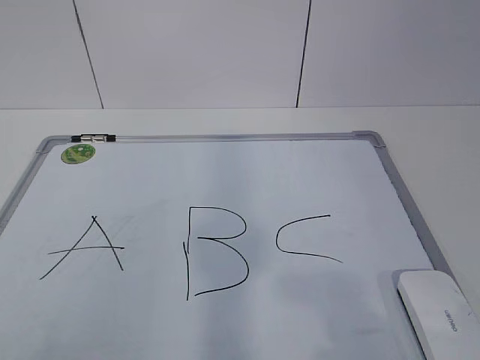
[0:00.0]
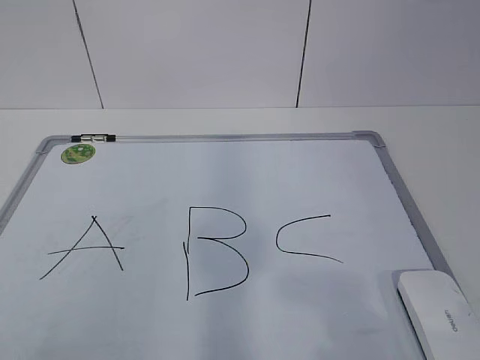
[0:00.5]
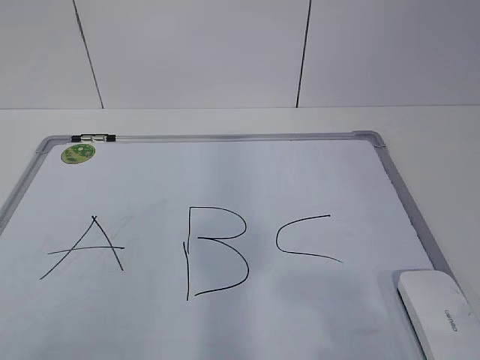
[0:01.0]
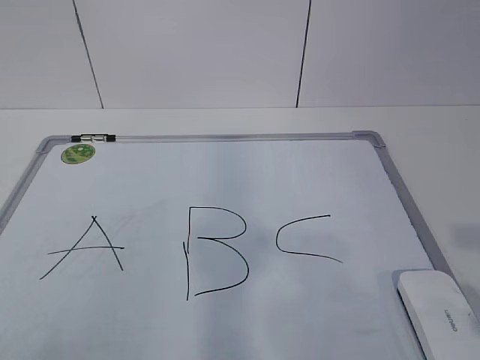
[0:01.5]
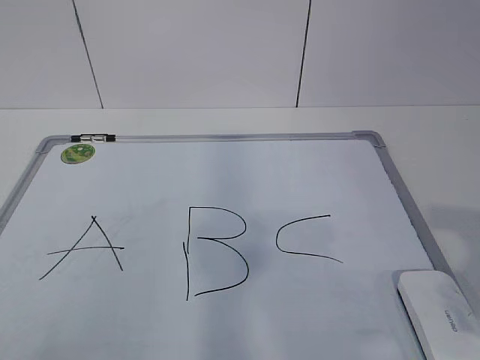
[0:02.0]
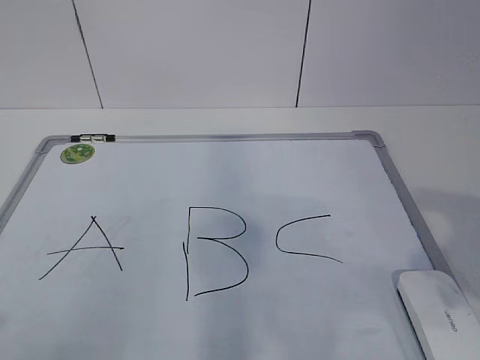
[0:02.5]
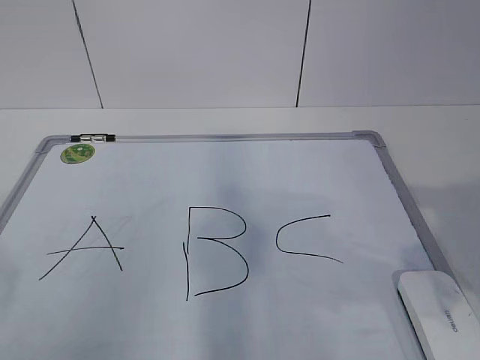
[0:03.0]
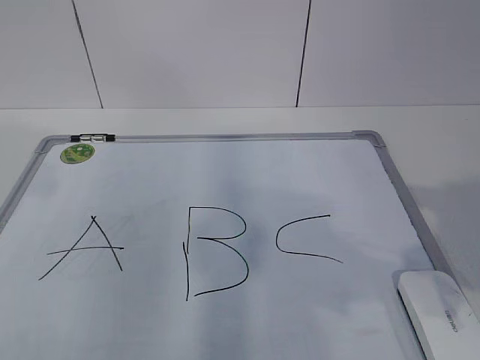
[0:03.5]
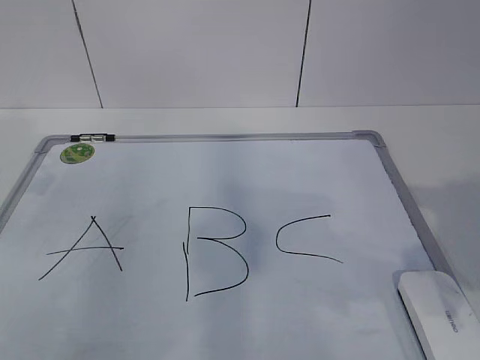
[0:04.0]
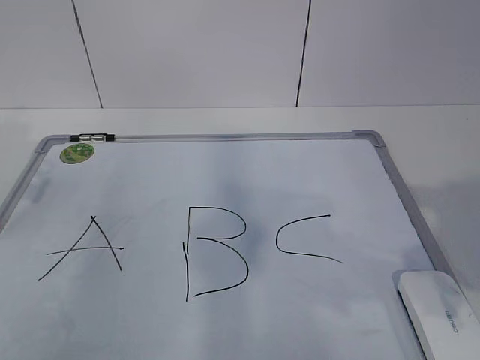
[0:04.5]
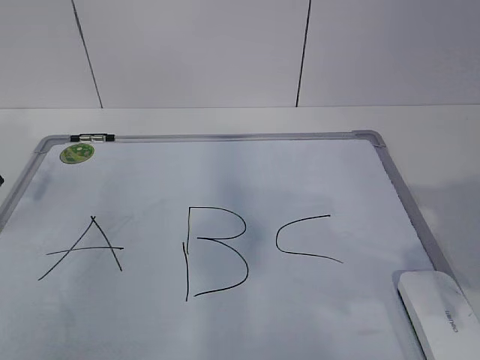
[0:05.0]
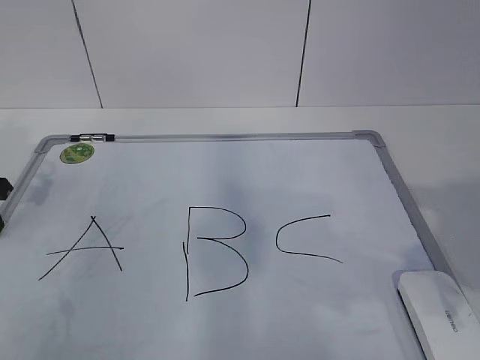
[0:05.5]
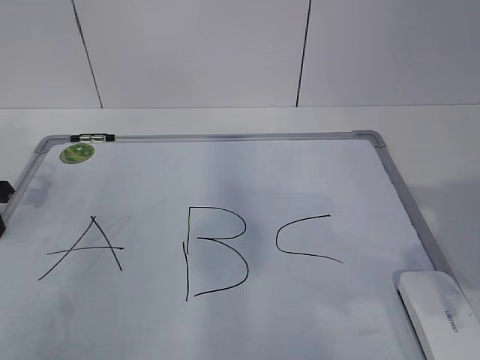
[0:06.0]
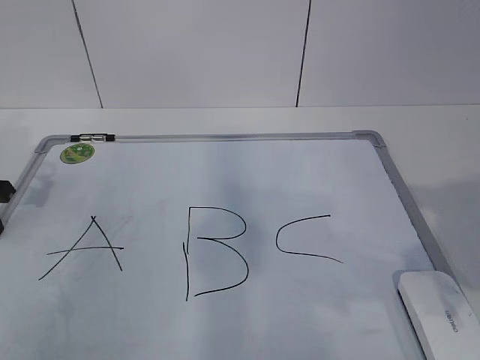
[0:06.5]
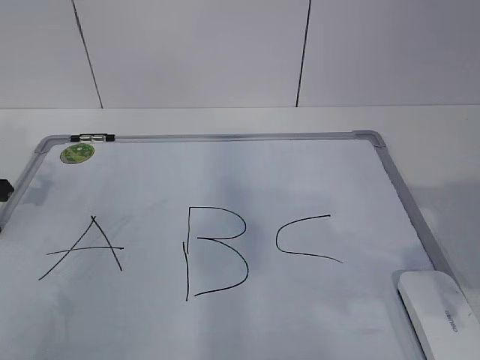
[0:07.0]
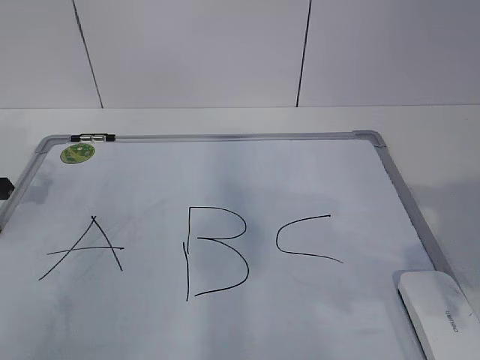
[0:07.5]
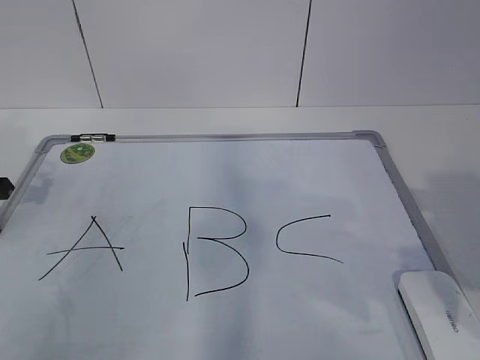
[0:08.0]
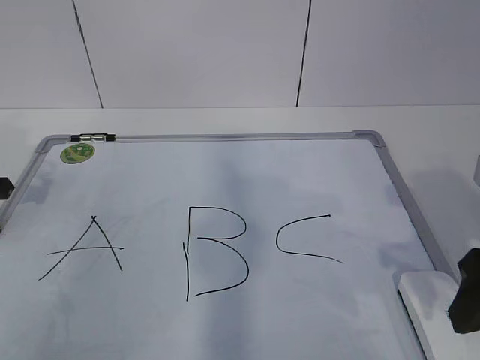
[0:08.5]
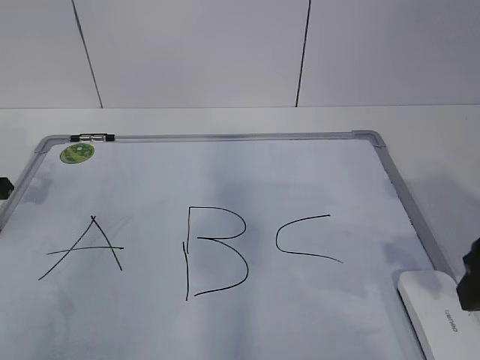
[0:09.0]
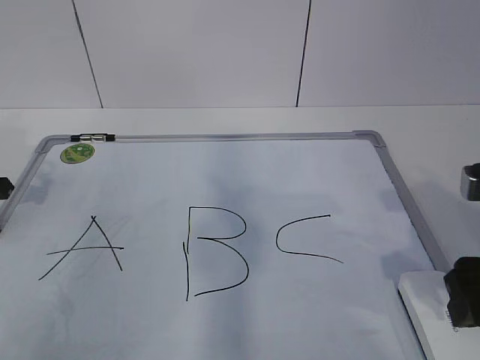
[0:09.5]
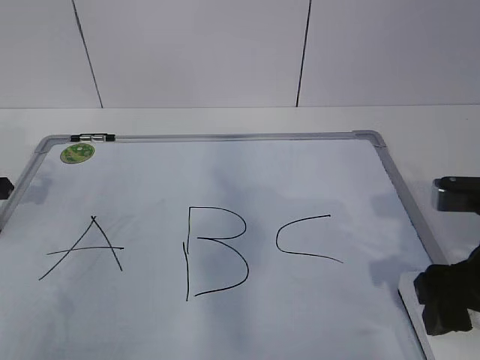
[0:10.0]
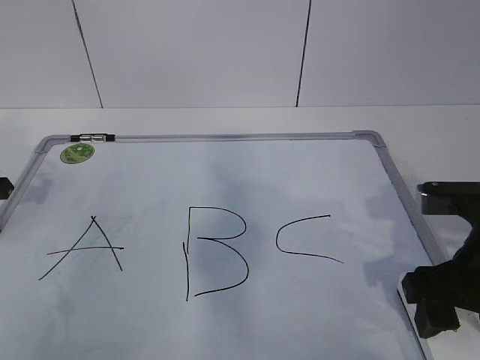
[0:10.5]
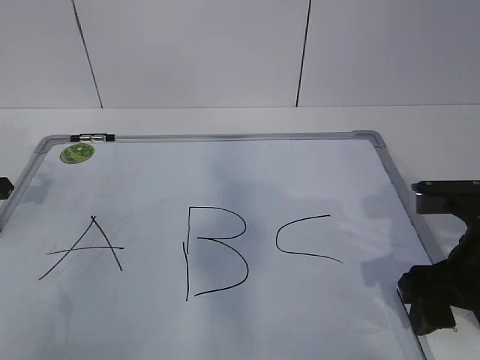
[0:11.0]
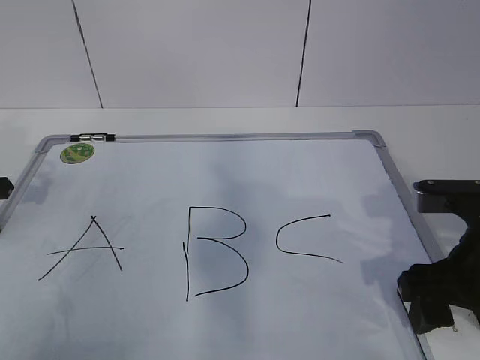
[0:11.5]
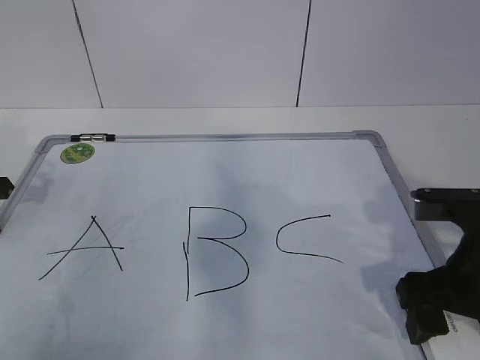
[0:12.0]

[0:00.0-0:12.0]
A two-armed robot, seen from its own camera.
Task of the whole recording: pick up the eraser on the blackboard and erase the letter "B".
Step, 0:05.0 to 0:10.5: Grab the eraser with your right hand.
0:02.0 to 0:04.0: The left gripper goes about 30 cm forward.
0:08.0 to 0:10.0: The right gripper moves downward, approximately 5 cm.
0:10.0 to 0:12.0: The grippers make only small movements.

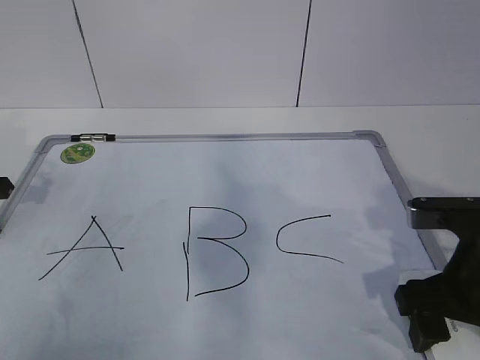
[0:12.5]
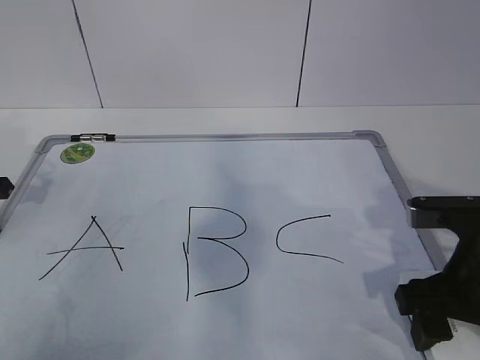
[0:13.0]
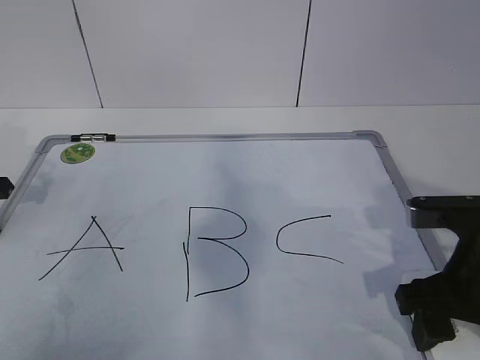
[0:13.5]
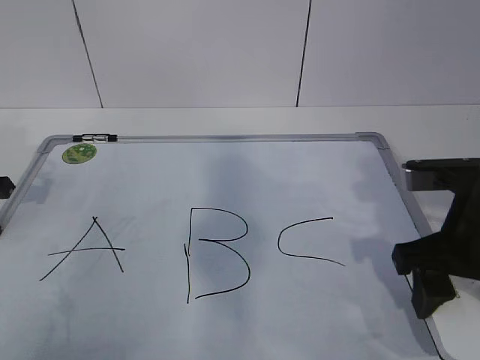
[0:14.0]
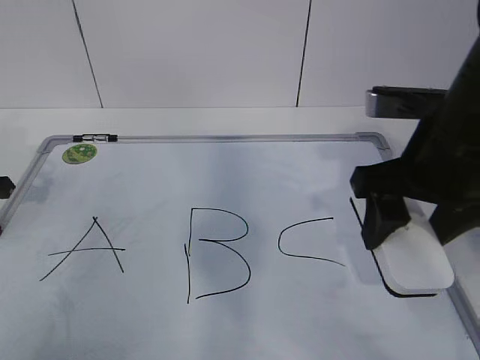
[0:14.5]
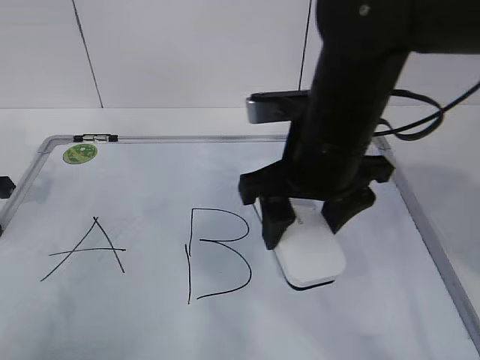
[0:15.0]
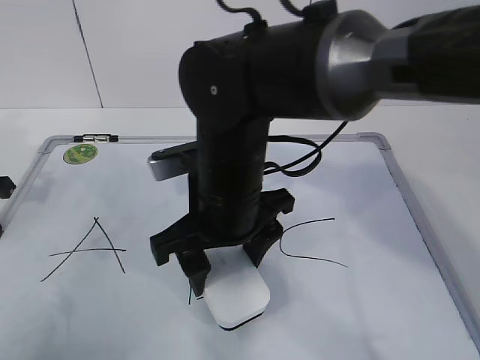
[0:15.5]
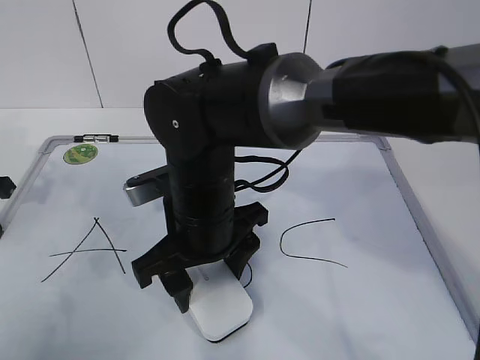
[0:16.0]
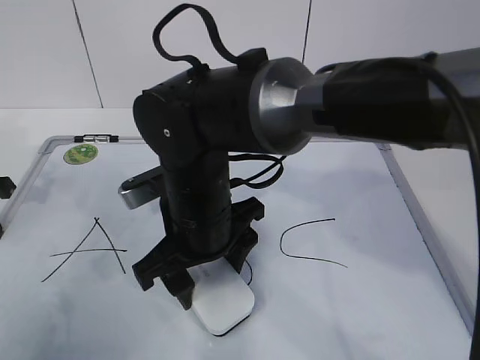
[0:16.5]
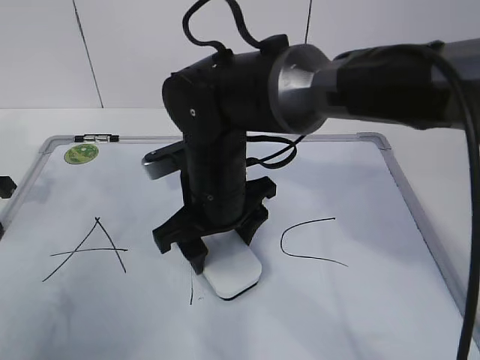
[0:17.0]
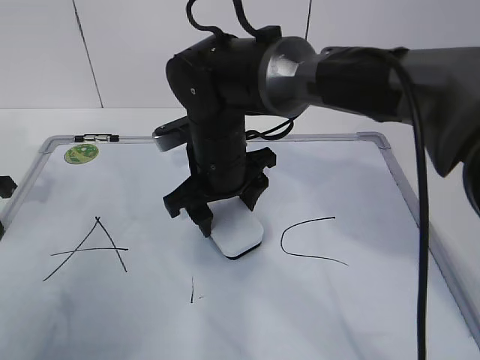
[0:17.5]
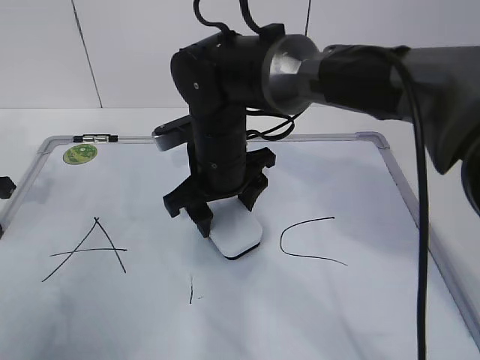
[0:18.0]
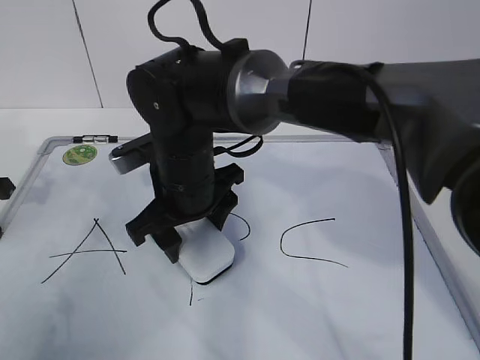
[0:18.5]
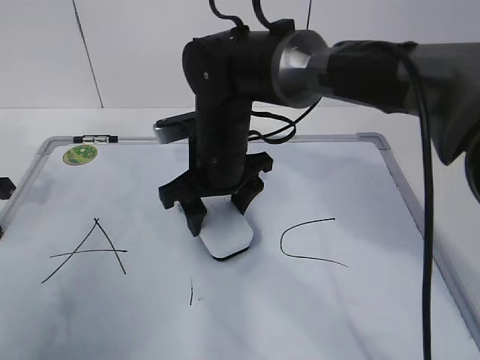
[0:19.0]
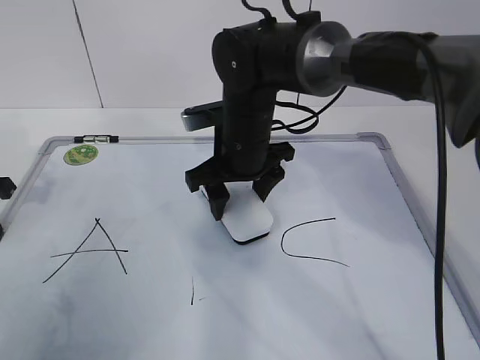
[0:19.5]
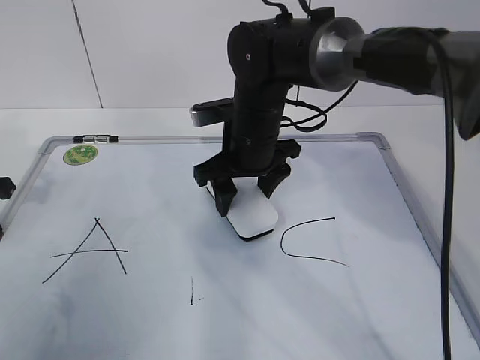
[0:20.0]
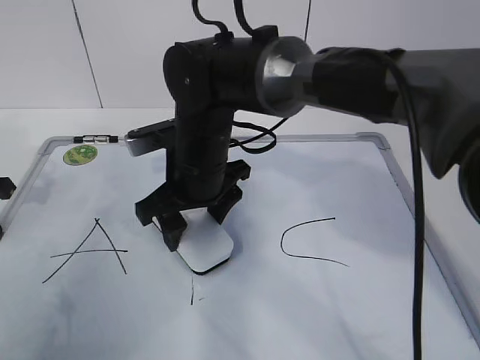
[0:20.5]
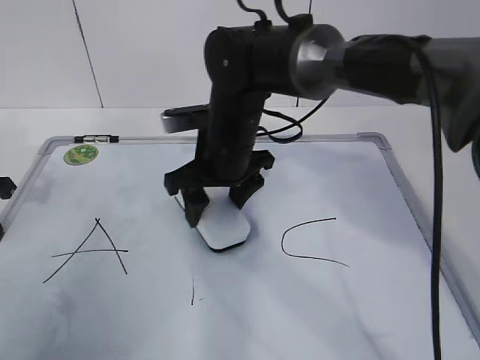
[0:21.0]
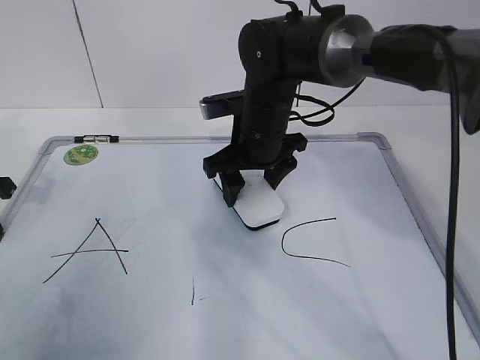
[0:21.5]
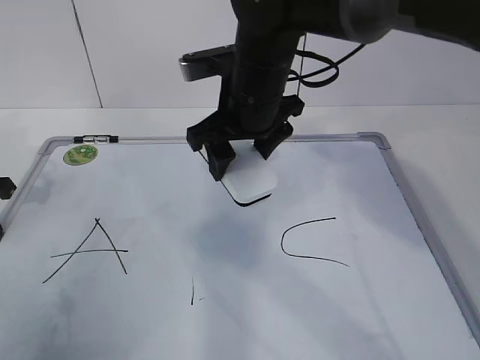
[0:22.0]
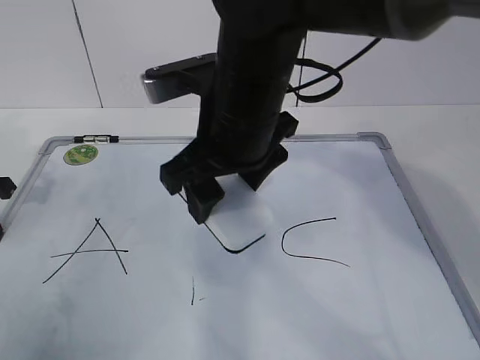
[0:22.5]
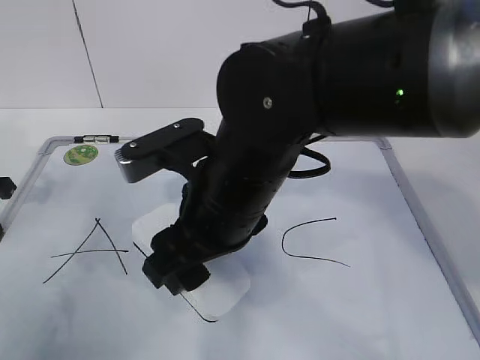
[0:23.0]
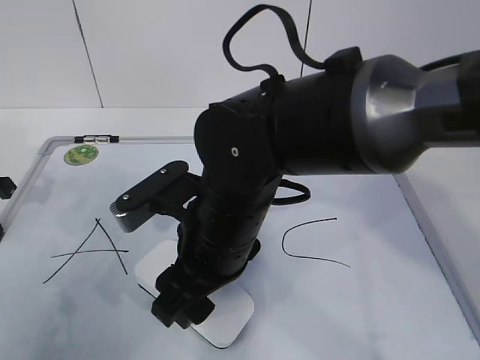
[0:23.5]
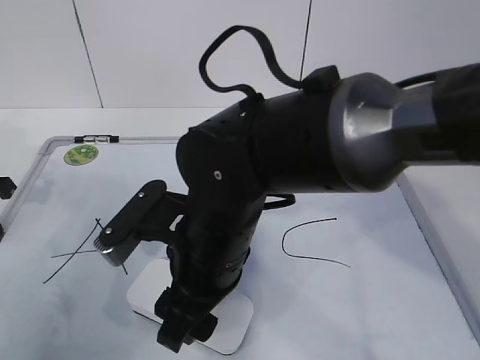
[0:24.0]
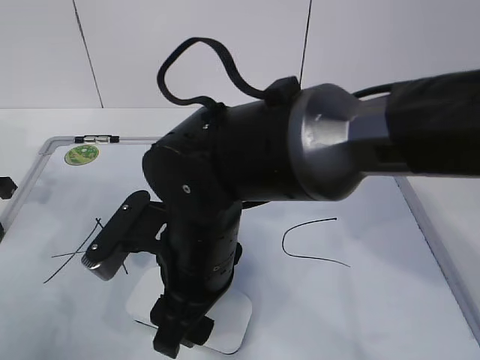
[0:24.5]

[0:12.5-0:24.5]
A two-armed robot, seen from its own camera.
Task of the whole recording: pick up the eraser on the blackboard and erase the letter "B".
Step, 0:12.5 to 0:23.0: Erase the letter B with your right hand.
0:12.5 to 0:14.5: The right gripper shifts about 10 cm upward and forward.
0:14.5 to 0:16.5: The right gripper travels to the left and downward by roughly 20 cm.
0:18.5 to 0:20.5: The right gripper moves some 10 cm to the right and comes back.
0:20.5 to 0:22.5: The right gripper heads upward and backward, covering some 10 cm.
0:22.5 to 0:24.5: The right gripper travels downward and backward by roughly 10 cm.

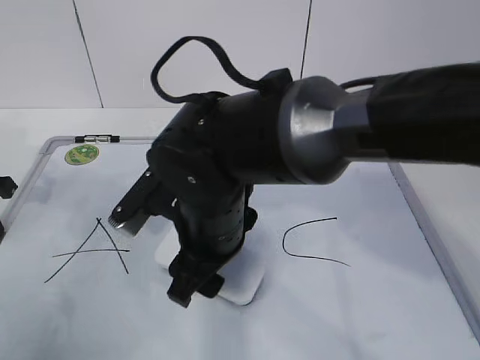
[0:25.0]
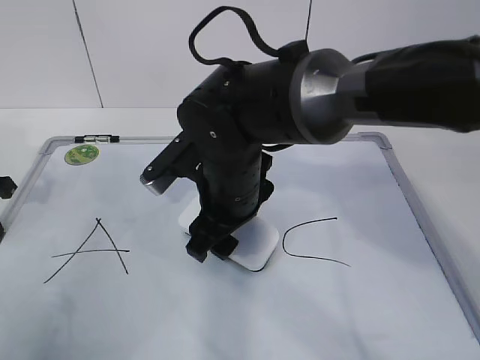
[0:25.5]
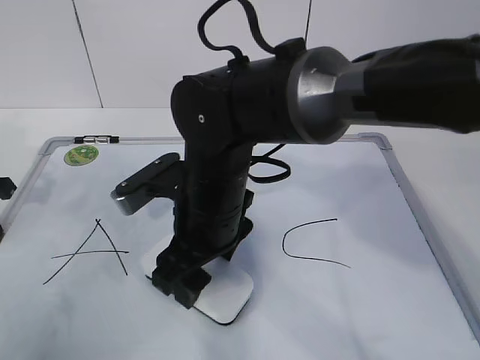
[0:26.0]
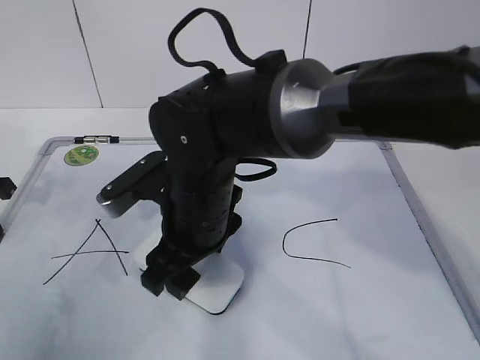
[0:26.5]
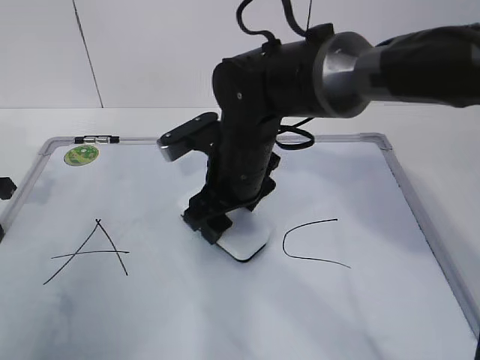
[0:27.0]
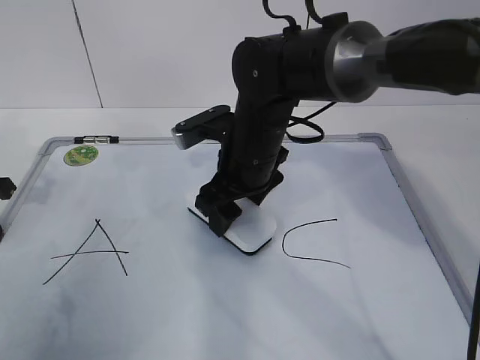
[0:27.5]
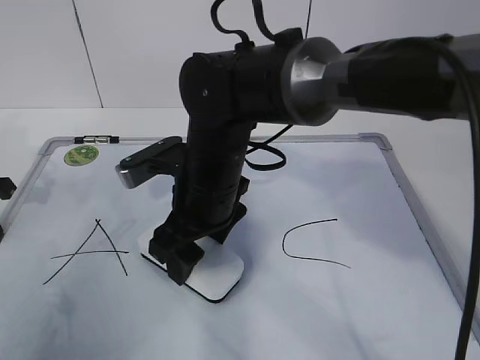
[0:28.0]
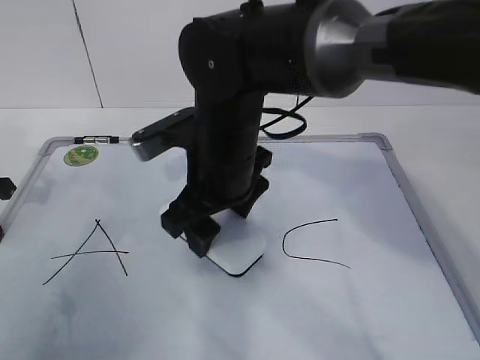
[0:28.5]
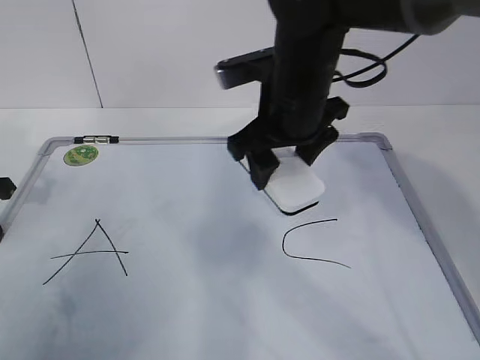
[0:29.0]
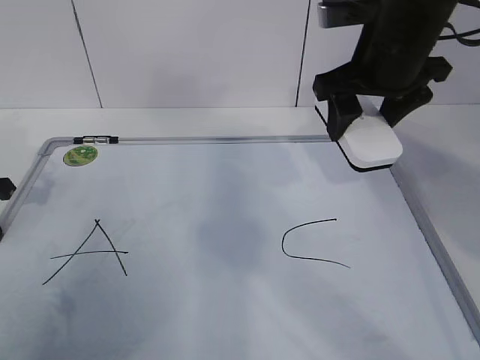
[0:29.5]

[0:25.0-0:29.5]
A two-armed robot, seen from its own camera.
Task of the whole recording: pick up the eraser on the blackboard and erase the letter "B".
Step, 0:25.0 to 0:27.5: Put down the eraser with your right hand.
0:25.0 to 0:27.0: The right gripper goes roughly 10 cm forward.
0:27.0 to 0:29.5: The right gripper heads to the right and upward, covering roughly 20 cm.
